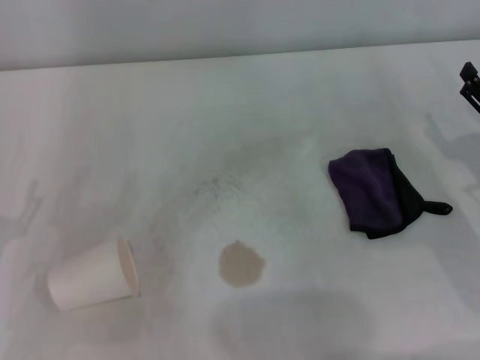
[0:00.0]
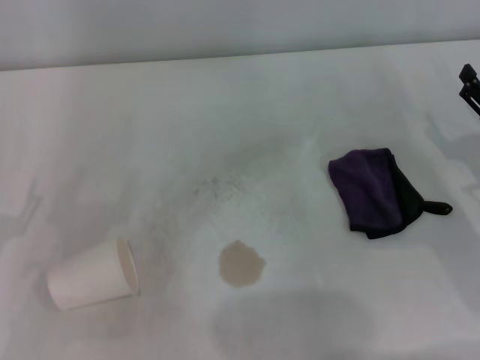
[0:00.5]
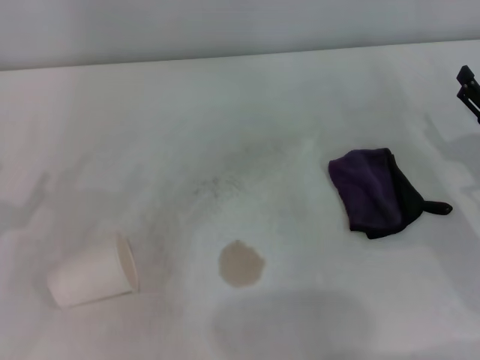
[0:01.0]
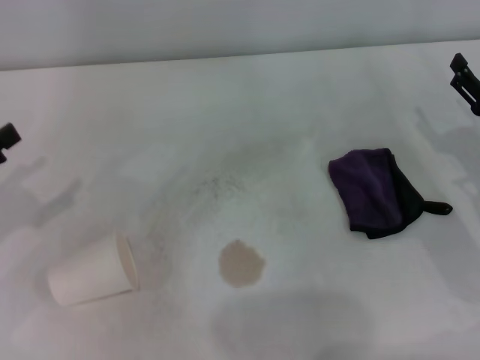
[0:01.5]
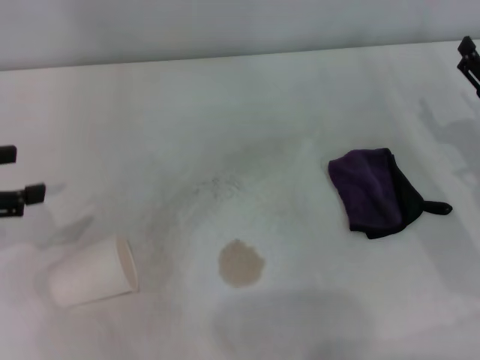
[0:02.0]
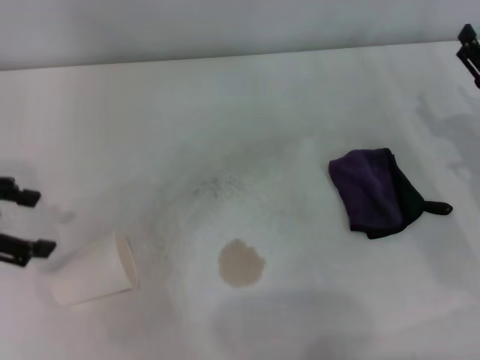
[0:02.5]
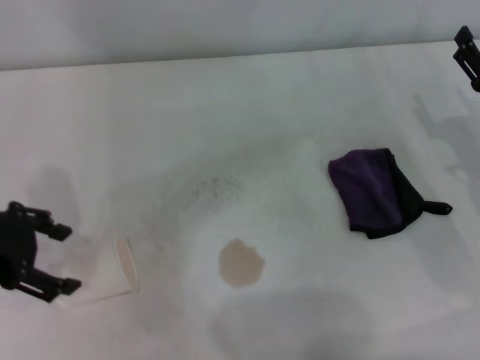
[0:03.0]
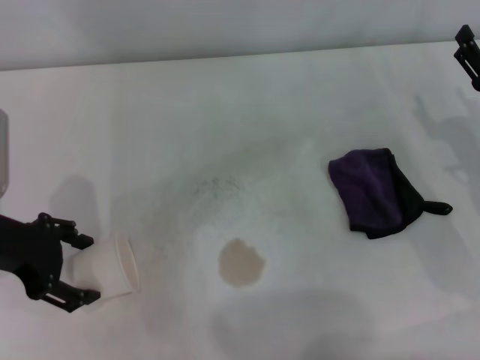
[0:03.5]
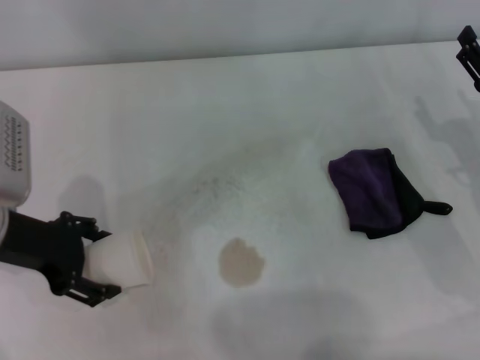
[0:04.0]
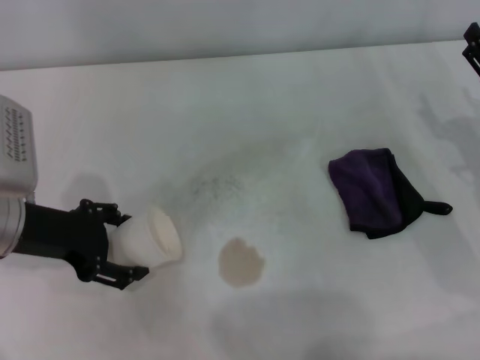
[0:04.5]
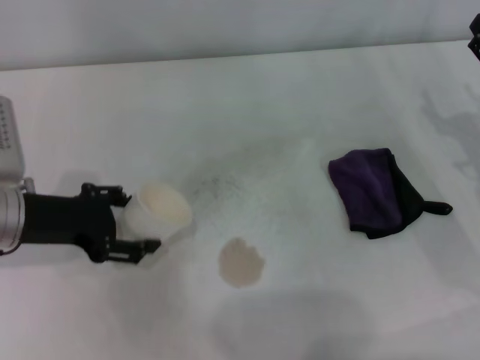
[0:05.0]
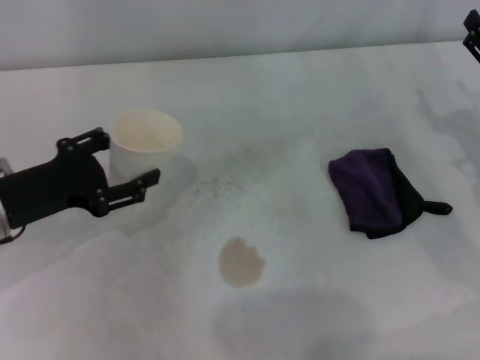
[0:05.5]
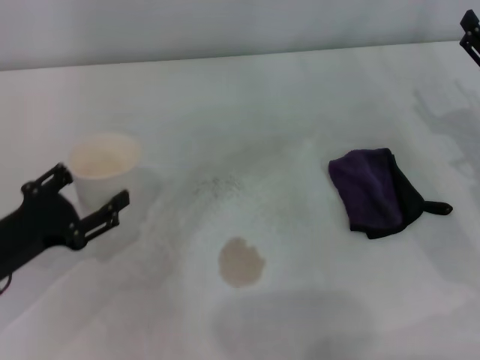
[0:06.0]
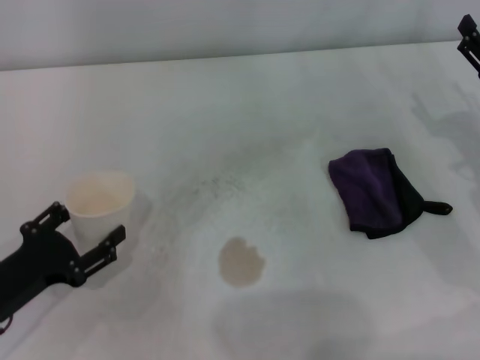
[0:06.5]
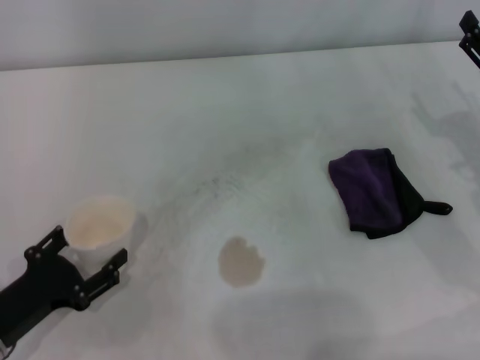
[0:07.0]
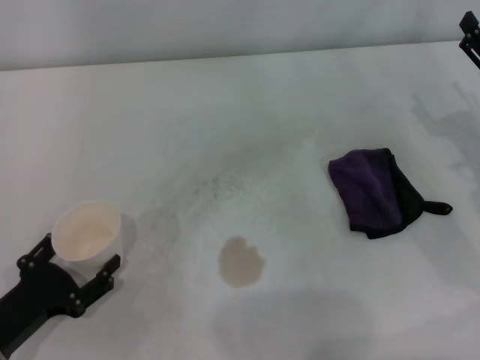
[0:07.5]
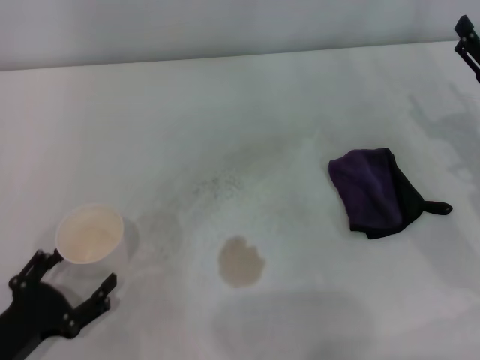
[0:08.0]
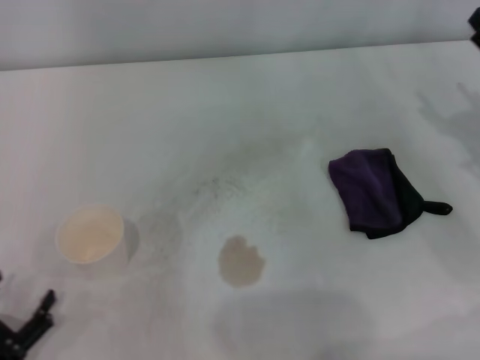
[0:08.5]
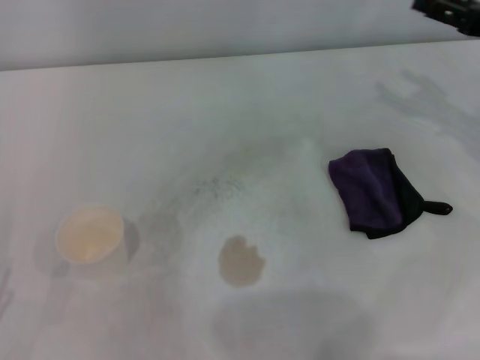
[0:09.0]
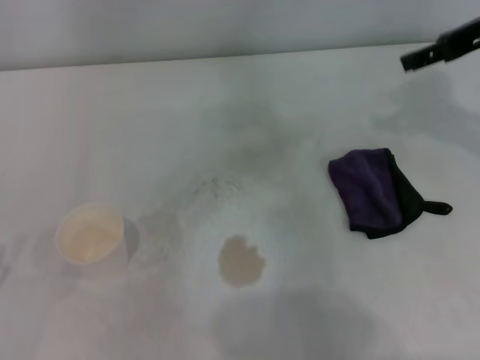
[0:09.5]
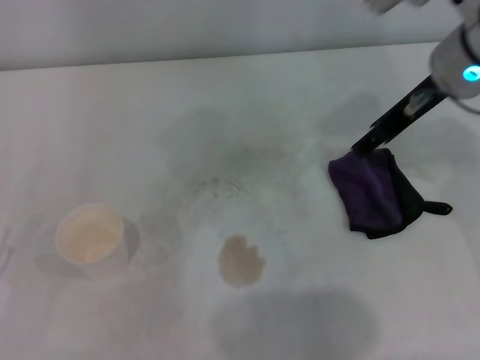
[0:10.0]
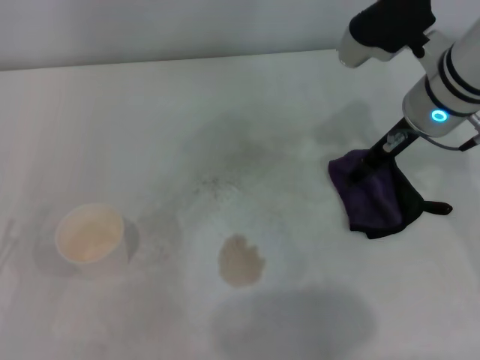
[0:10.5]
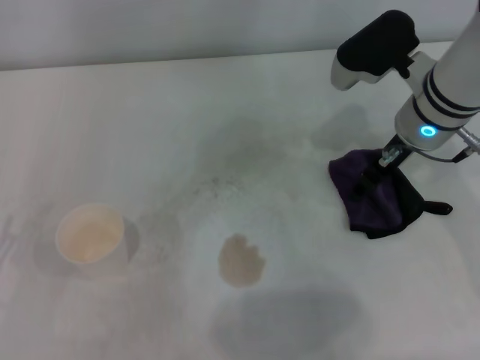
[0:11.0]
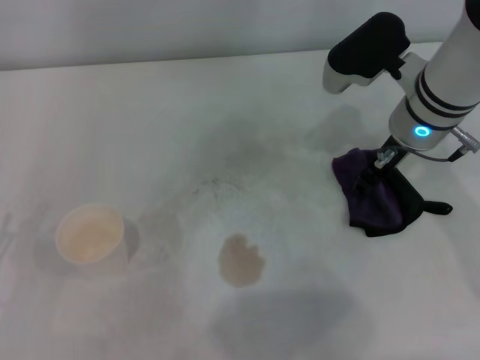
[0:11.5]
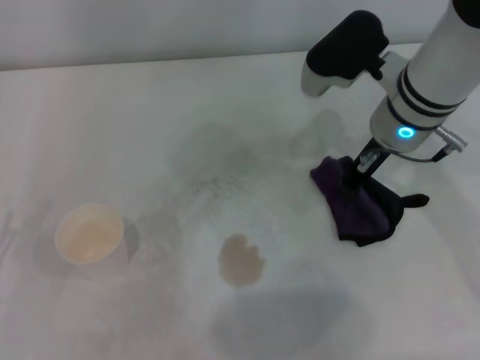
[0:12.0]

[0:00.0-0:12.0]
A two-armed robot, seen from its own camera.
Step, 0:00.0 to 0:03.5: Grasp the paper cup with the left gripper.
Step, 0:04.0 to 0:07.5: Stand the paper cup upright with the left gripper.
Step, 0:08.0 to 0:11.5: Grasp the rag with the right gripper.
0:00.0 to 0:02.0: The left gripper moves upward and forward, some 15 cm.
0:02.0 to 0:04.0: The left gripper heads to the right, covering roughly 10 cm.
0:04.0 to 0:06.0: The left gripper goes some 10 cm downward and backward.
0:06.0 to 0:08.0: The left gripper heads backward and downward, covering roughly 10 cm.
0:08.0 to 0:10.0: The left gripper heads to the left, covering some 5 cm; the right gripper heads upward, to the left and forward, covering about 20 cm.
0:10.0 to 0:12.0: The right gripper is displaced downward by roughly 5 cm, and closes its fingers.

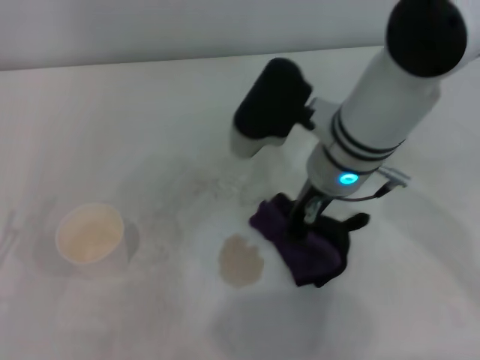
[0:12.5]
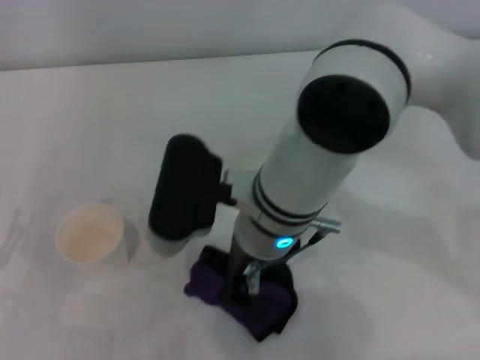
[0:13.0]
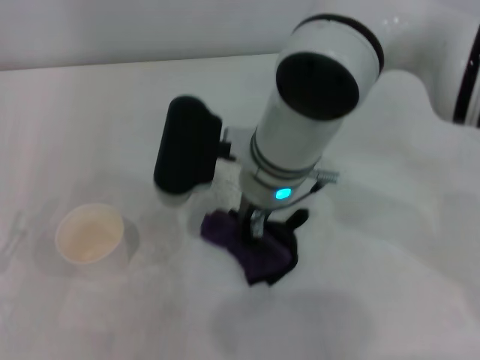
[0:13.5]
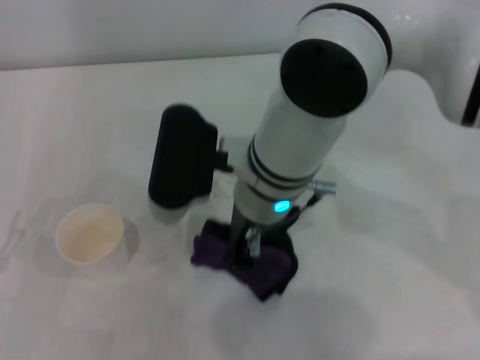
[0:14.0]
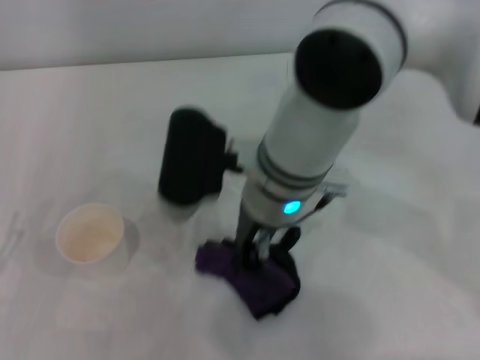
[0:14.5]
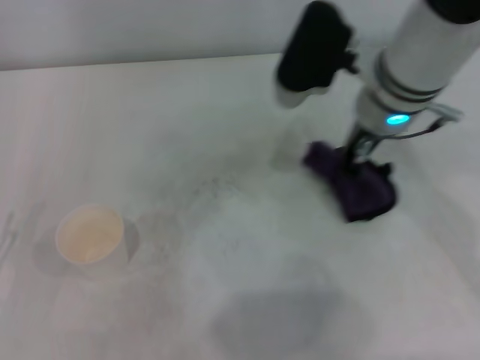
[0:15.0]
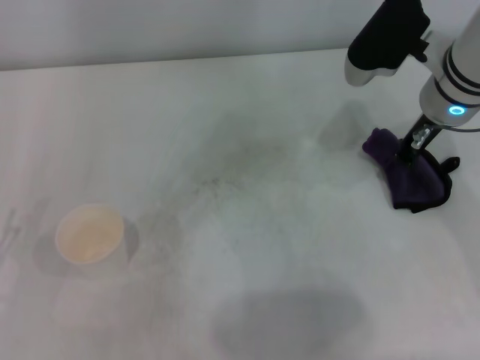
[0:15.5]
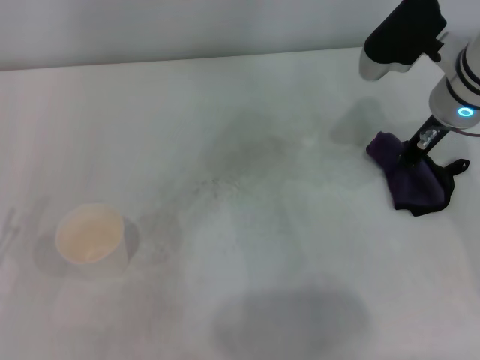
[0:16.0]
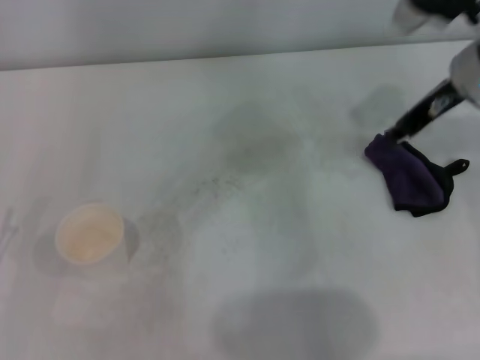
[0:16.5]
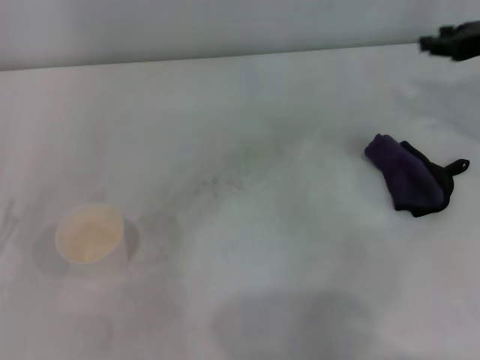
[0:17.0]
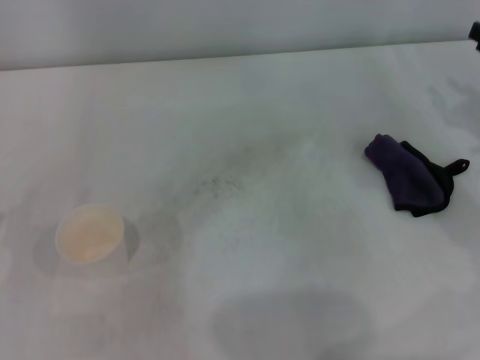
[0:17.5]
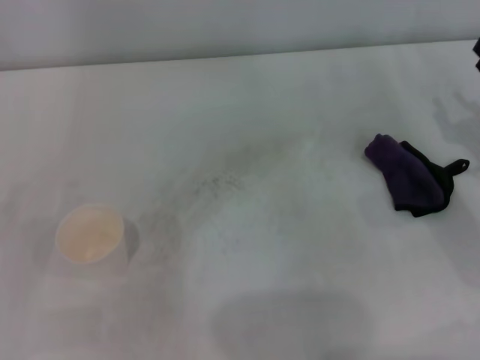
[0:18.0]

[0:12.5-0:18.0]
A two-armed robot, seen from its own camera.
Step, 0:12.5 to 0:15.0: Wipe the stains off the table with the right gripper.
Step, 0:15.5 to 0:16.0: Place the rag on the table with the right gripper.
0:12.5 to 0:14.5: The right gripper shifts about 5 cm to the left.
0:14.5 to 0:16.0: The right gripper is displaced to the right by about 20 cm.
0:16.0 to 0:18.0: The right gripper shifts roughly 20 cm to the right, backward and downward, and opens.
